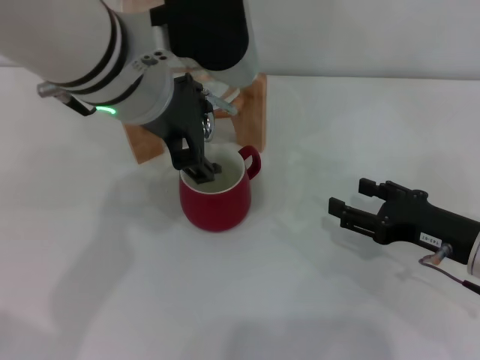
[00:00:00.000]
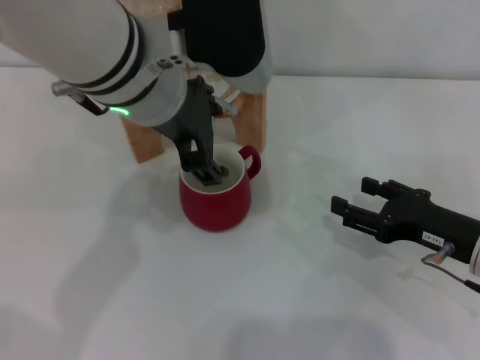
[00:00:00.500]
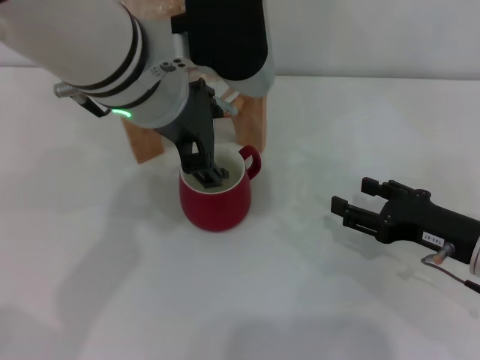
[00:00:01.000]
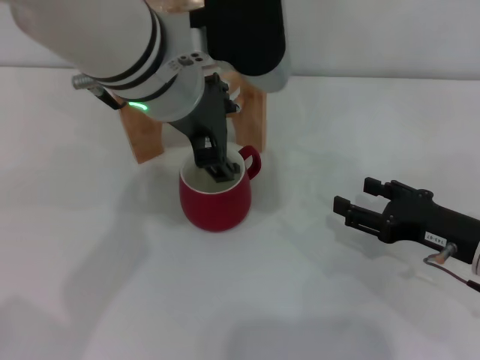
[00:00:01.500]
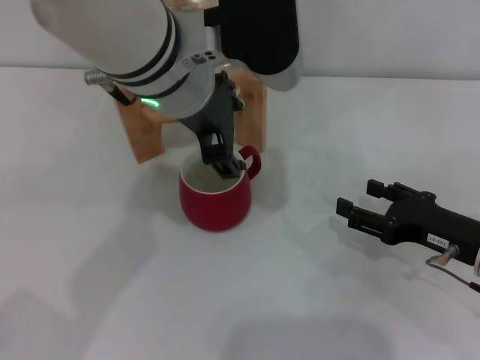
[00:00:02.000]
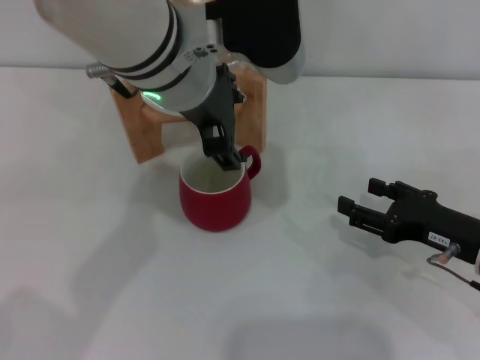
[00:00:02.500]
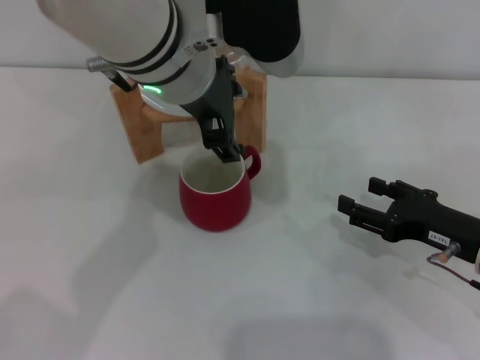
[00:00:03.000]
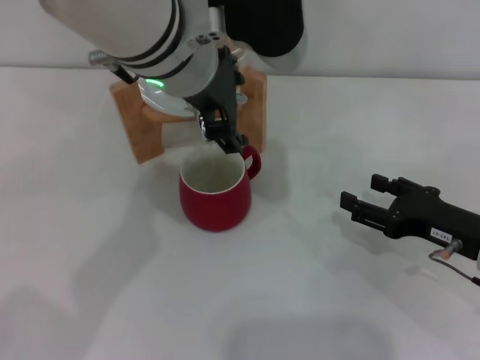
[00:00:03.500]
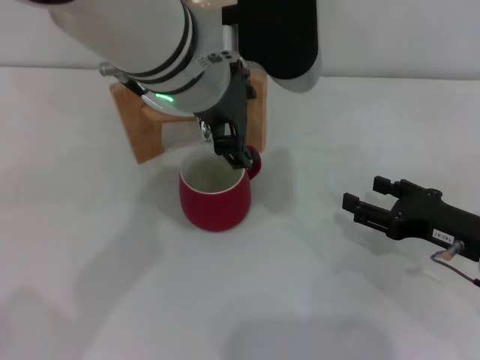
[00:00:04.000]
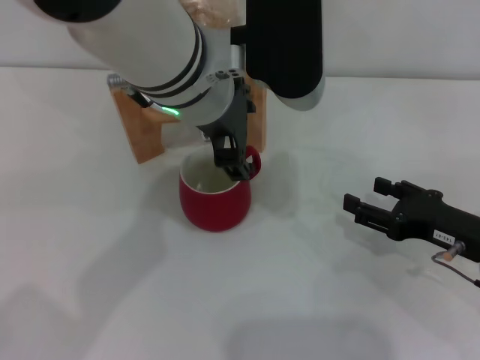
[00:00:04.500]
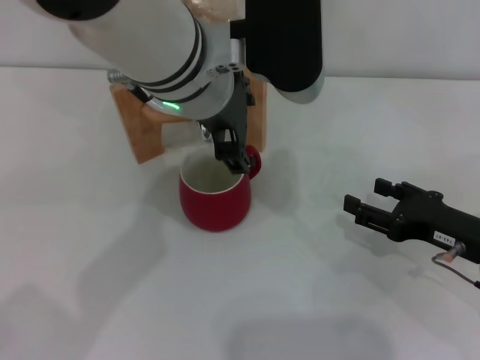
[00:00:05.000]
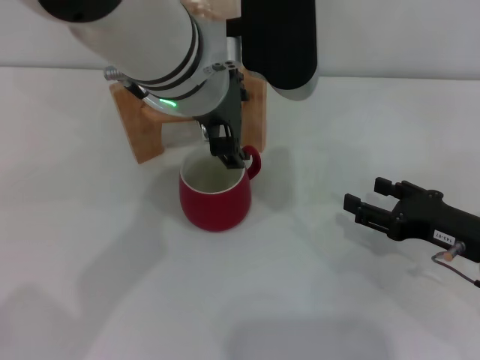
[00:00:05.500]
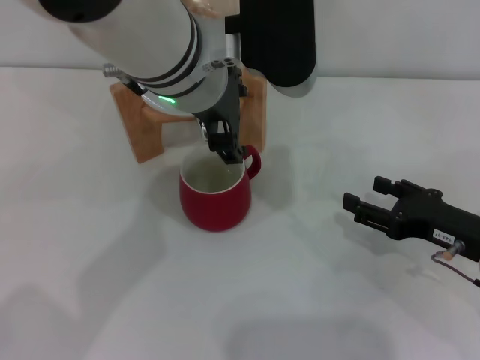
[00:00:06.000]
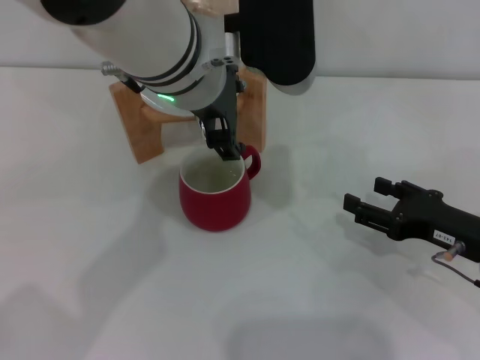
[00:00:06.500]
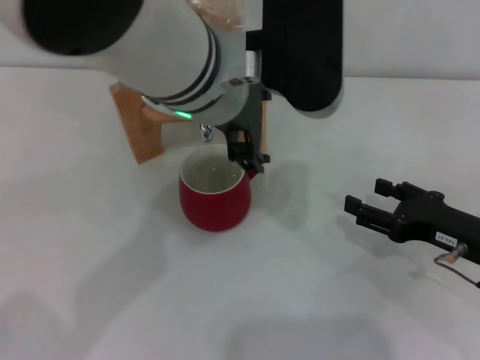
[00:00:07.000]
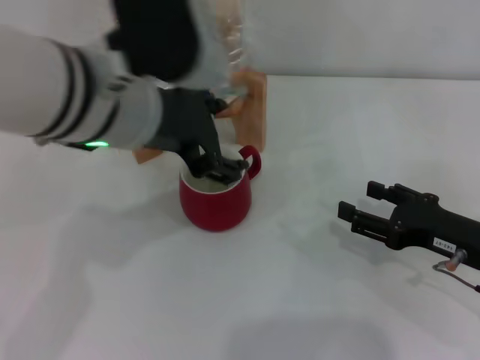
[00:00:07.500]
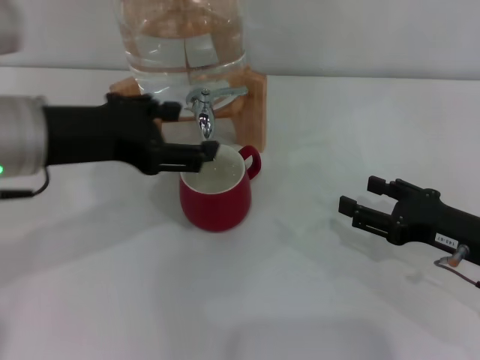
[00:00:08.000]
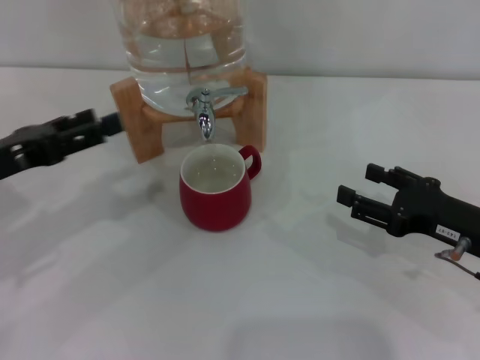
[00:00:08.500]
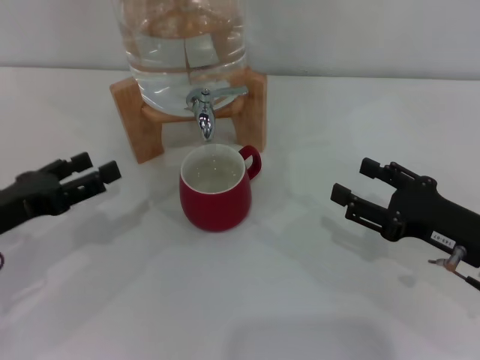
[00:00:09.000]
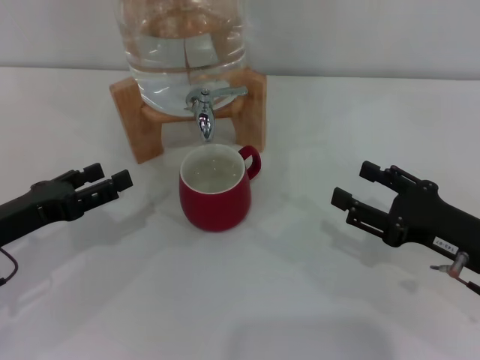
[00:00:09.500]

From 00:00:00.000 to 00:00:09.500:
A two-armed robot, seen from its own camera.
Task of the whole recording: the right gripper pick up the red cup and place it horizontally under the faucet, the left gripper turn on the faucet to fill the cup, and then turn off the faucet.
Step, from 00:00:00.000 to 00:00:07.500: Close the dispenser valve with the left gripper.
From 00:00:00.000 to 00:00:04.000: The grippers stay close to where they were, moving slightly.
From 00:00:04.000 to 00:00:05.500: Both grippers stay about where they are.
From 00:00:05.500 to 00:00:07.500: The left gripper moves to the left, some 5 cm.
From 00:00:07.500 to 00:00:09.500: The left gripper is displaced to the left and downward by approximately 25 cm.
